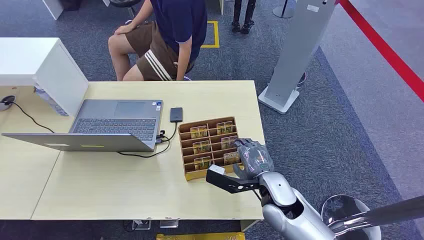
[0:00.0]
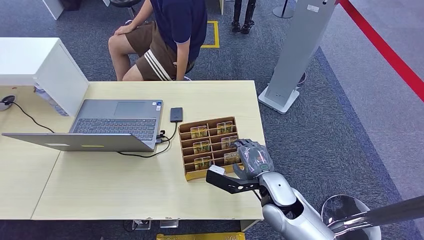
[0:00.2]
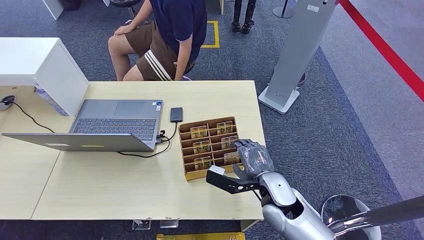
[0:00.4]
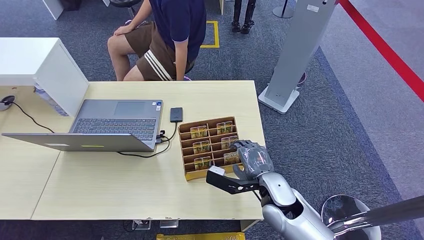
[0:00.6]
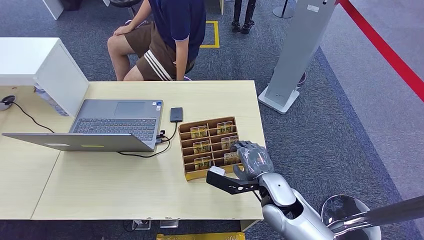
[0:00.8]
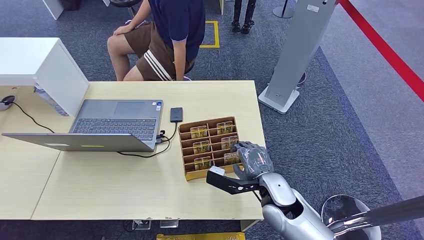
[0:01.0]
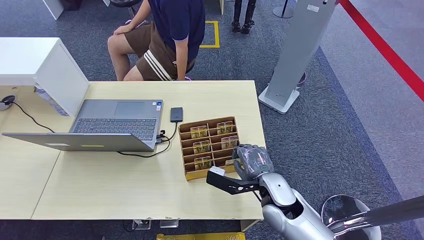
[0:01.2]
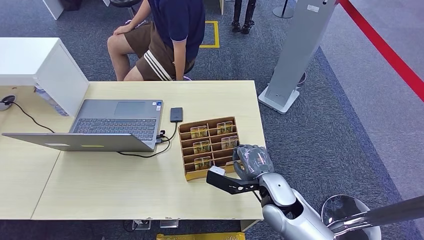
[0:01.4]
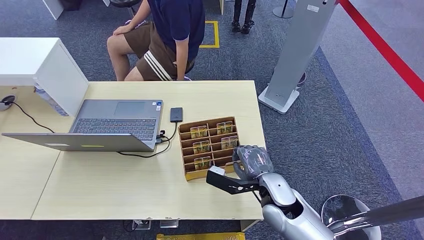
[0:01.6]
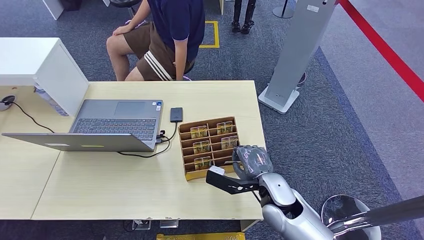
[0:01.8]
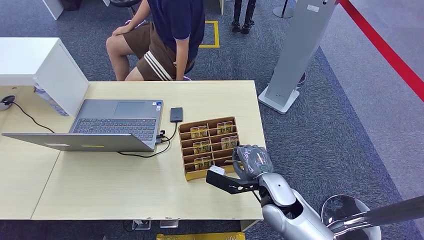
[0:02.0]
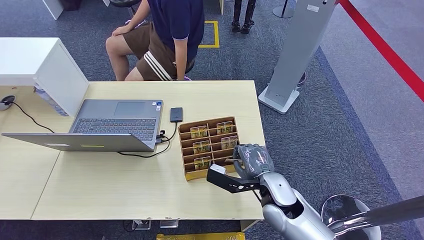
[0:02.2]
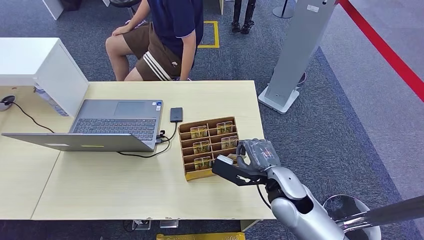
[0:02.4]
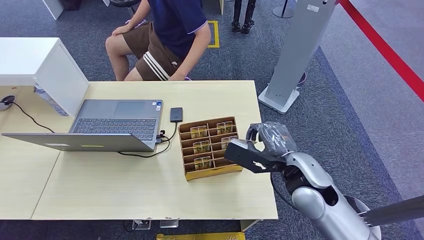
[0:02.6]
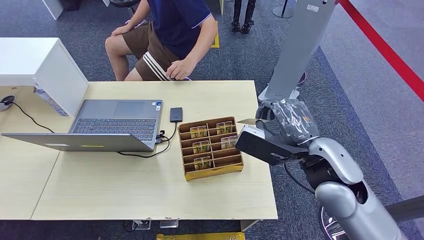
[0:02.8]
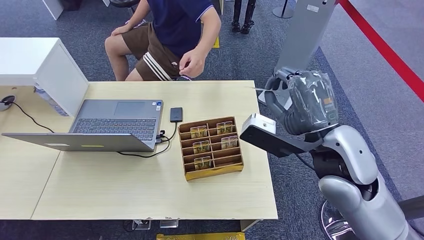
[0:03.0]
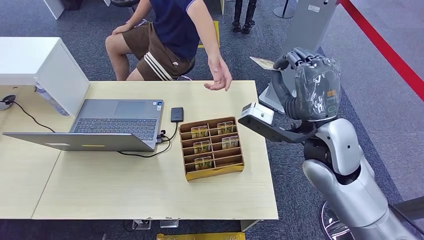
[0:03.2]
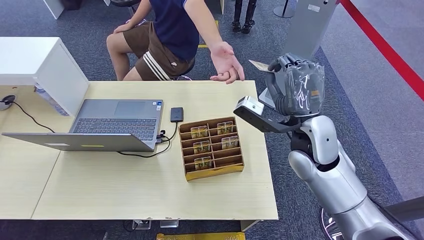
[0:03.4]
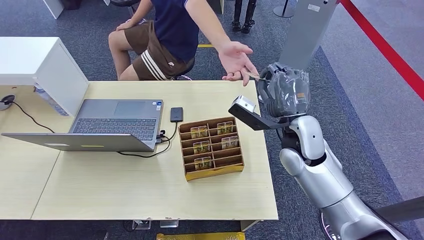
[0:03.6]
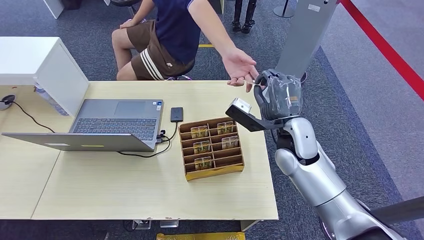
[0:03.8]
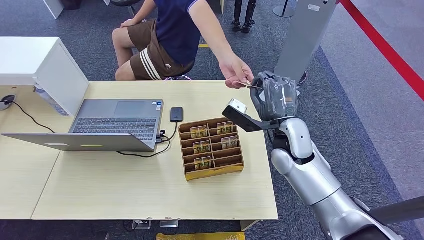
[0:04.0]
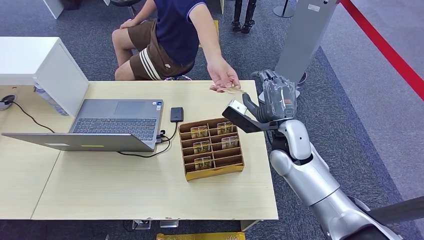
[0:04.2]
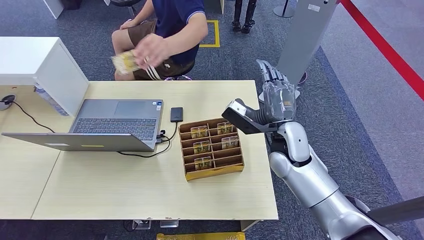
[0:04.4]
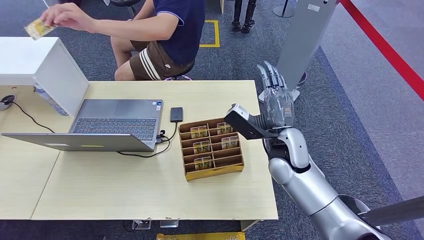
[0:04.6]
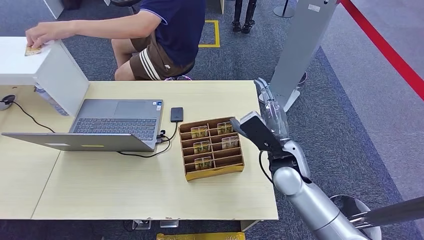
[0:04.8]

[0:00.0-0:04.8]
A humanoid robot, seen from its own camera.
Step, 0:00.0 to 0:02.8: Pick up the key card from the card box.
Step, 0:03.0 to 0:04.8: Hand the key card to the target.
0:01.6 to 0:03.2: The right hand shifts some 20 cm upward.
